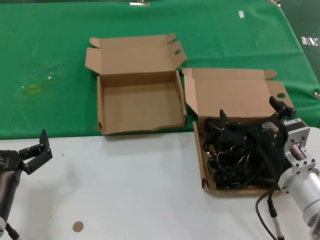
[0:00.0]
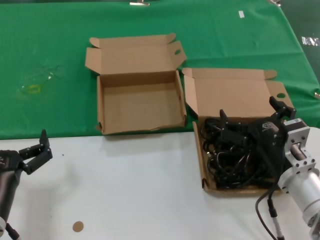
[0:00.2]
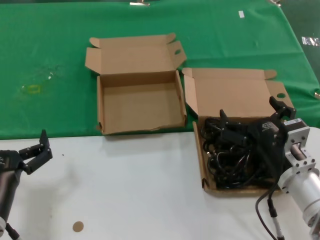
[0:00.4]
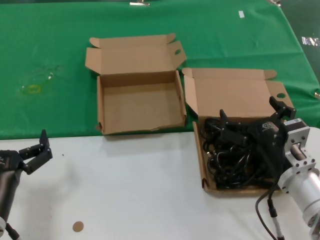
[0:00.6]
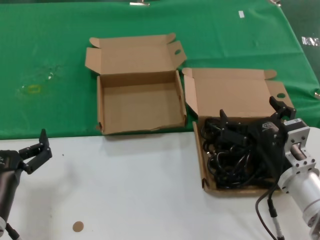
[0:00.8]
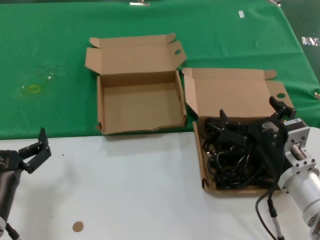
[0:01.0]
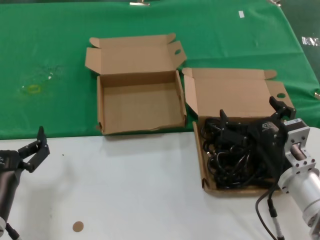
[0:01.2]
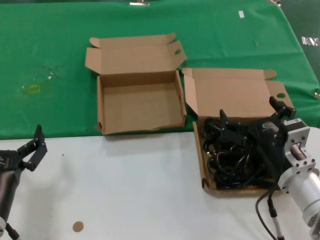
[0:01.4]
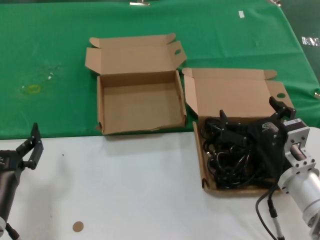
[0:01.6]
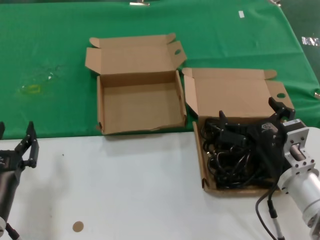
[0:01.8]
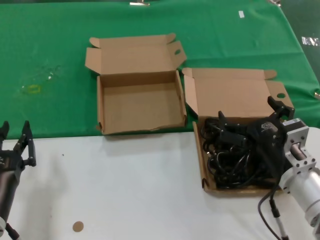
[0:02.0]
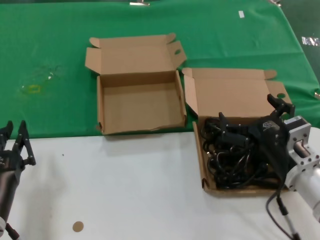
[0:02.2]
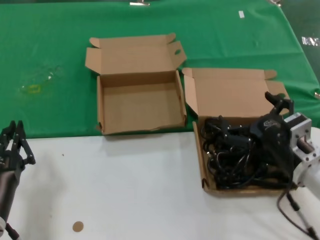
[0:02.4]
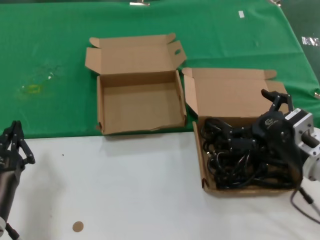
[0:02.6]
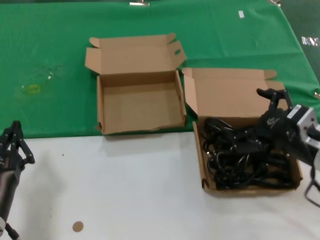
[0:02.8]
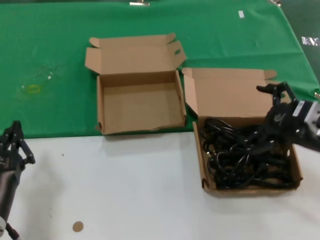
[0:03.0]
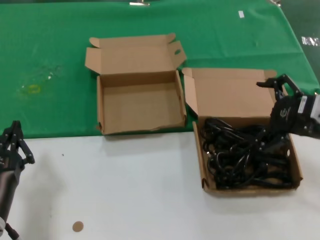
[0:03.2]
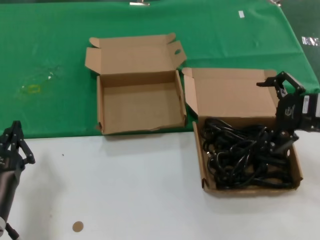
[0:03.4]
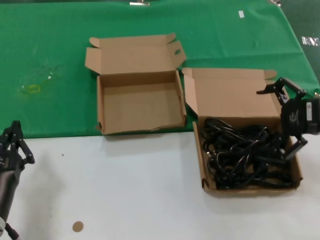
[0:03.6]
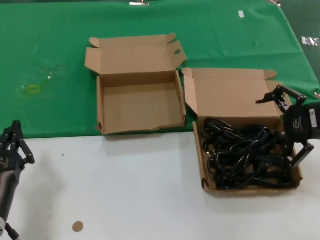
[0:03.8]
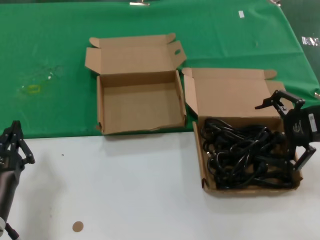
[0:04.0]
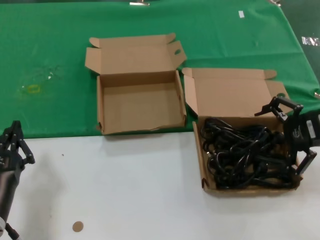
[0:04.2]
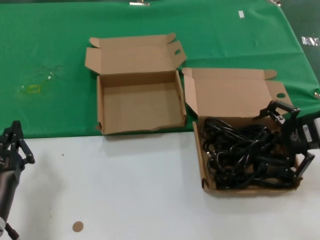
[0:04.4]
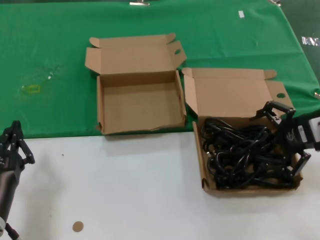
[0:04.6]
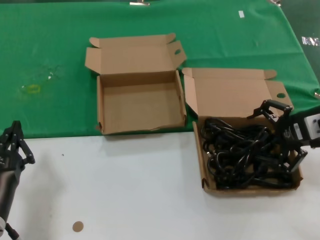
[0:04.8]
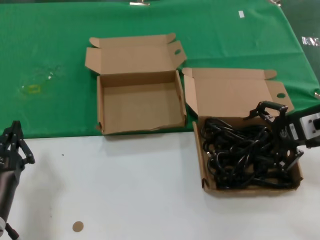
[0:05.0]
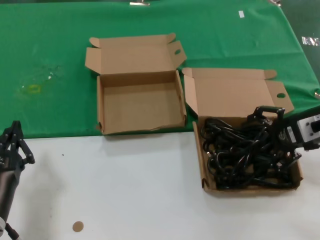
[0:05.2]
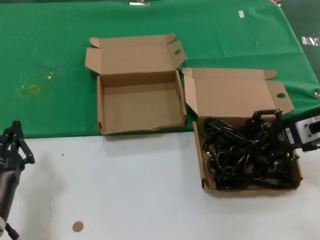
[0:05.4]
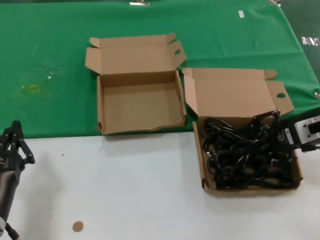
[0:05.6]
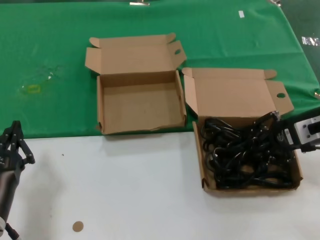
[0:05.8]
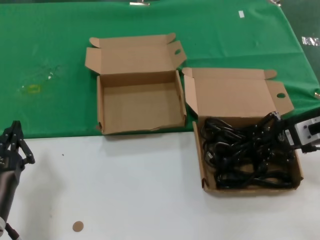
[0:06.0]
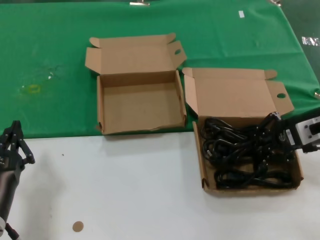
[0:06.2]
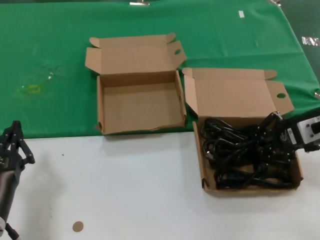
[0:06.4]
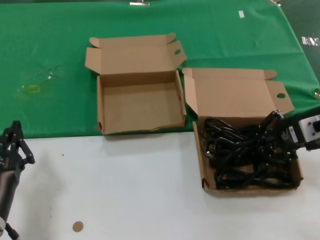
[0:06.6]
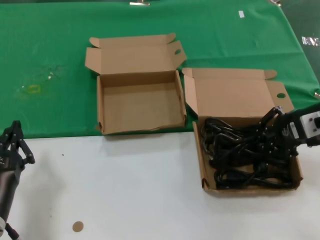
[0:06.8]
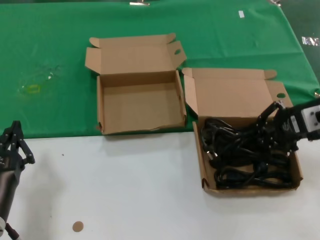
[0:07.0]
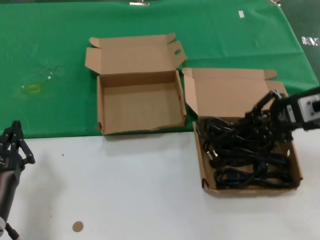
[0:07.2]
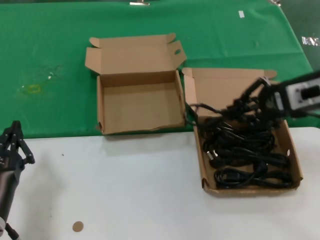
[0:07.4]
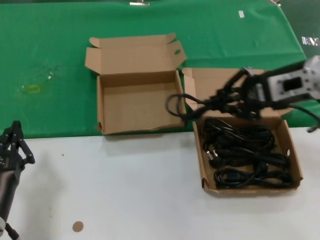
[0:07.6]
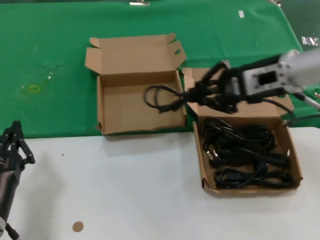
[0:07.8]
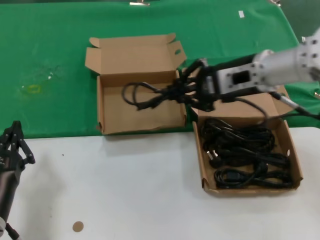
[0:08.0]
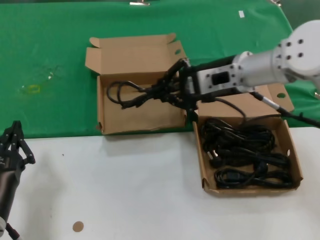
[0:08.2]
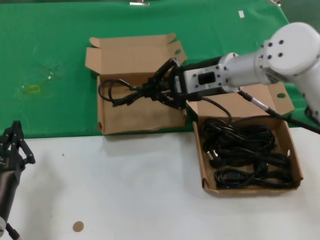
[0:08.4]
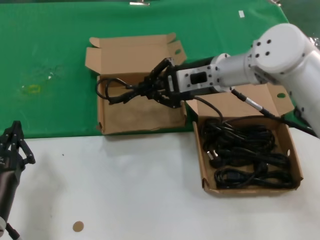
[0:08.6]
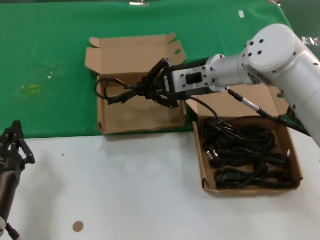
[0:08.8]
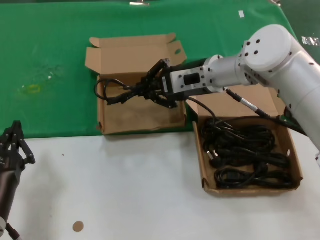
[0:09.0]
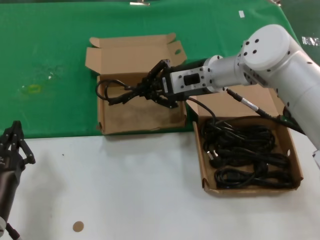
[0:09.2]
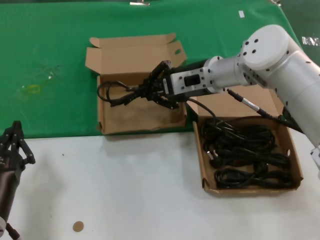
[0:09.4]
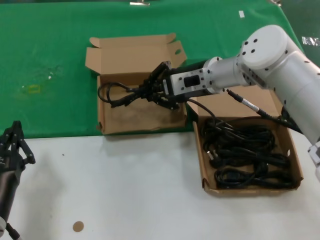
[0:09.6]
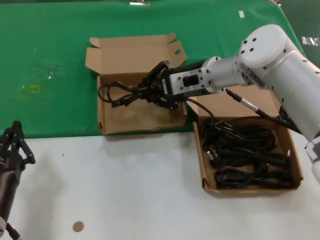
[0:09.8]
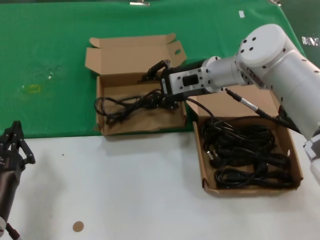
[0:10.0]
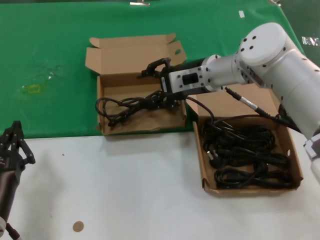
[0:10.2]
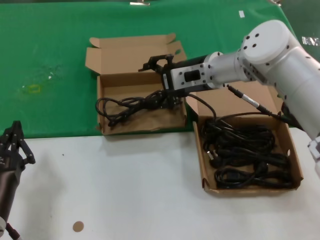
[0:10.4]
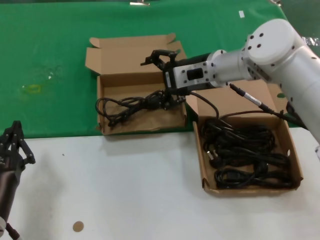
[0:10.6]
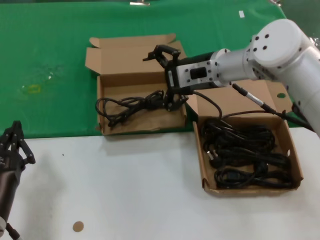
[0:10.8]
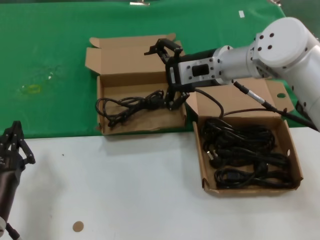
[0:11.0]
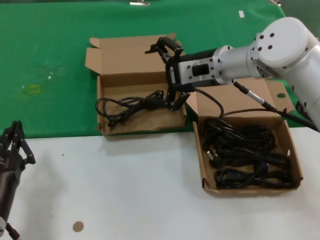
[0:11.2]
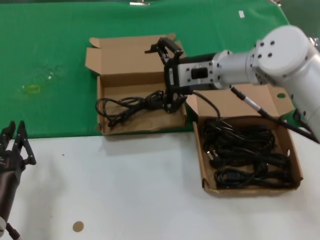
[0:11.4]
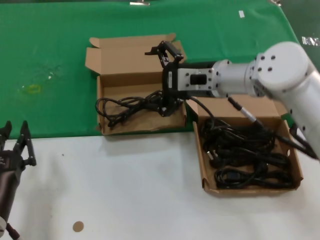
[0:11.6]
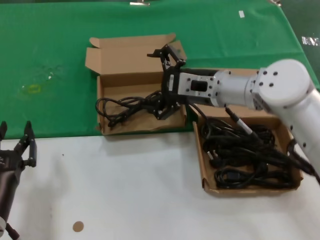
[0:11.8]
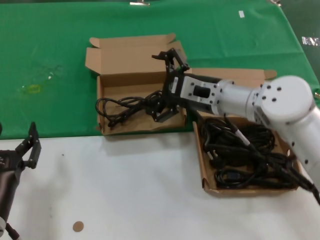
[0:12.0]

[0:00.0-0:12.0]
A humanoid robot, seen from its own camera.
Task of the whole recording: take the parts from the box containing them and put them into an empty box.
Step, 0:00.0 to 0:05.6: Grasp the data cable.
Step, 0:06.0 to 0:10.0: Place the data cable in the another box.
0:00.0 to 0:01.6: The two hands keep their place.
0:01.6 to 0:03.0: The right hand travels to the right and upward by about 15 cm.
0:03.0 to 0:04.4: The right hand moves upward and forward, about 10 cm.
0:04.4 to 0:06.0: The hands make only small movements.
0:06.0 to 0:07.6: The right hand shifts roughly 10 cm upward and to the left.
0:07.6 to 0:09.0: The right hand travels to the left and forward by some 20 cm.
0:09.0 to 0:10.4: The hands stay close to where they were, moving slightly.
0:10.4 to 0:12.0: The right hand is displaced backward by roughly 5 cm.

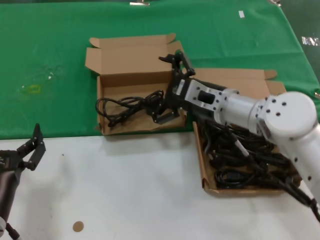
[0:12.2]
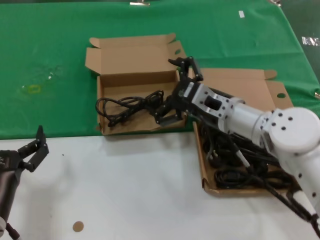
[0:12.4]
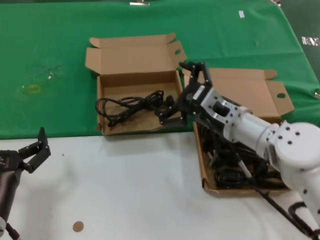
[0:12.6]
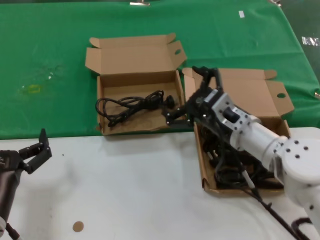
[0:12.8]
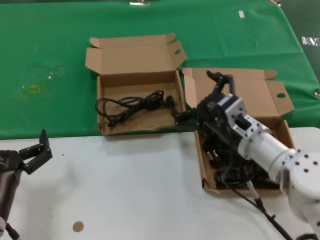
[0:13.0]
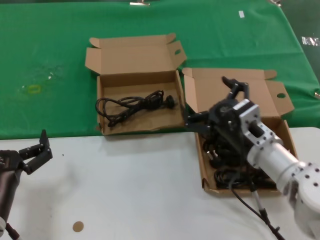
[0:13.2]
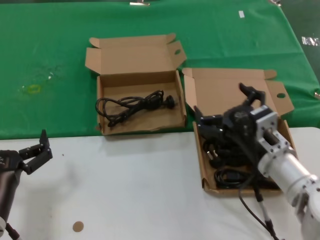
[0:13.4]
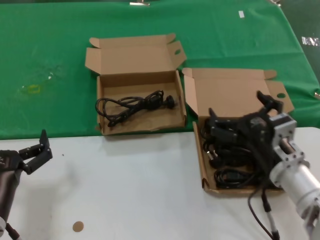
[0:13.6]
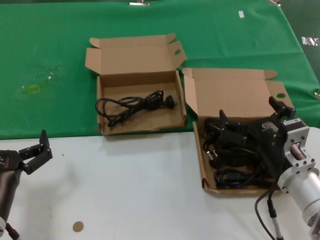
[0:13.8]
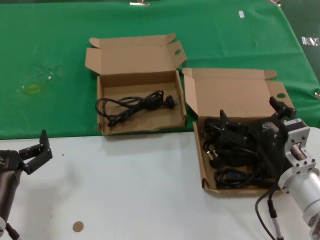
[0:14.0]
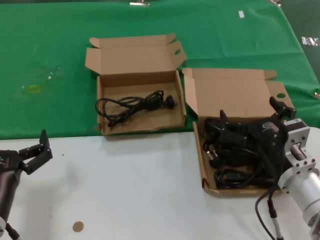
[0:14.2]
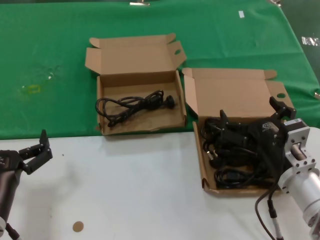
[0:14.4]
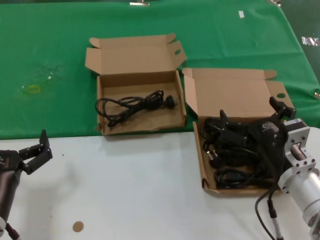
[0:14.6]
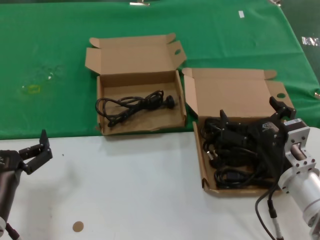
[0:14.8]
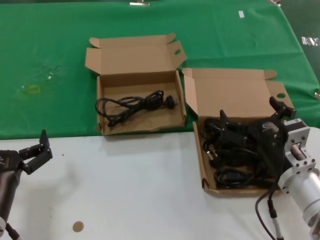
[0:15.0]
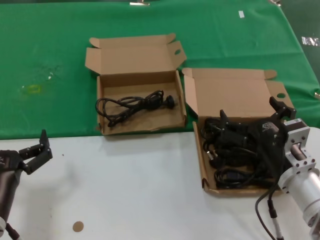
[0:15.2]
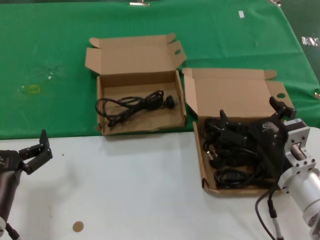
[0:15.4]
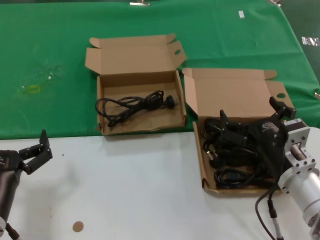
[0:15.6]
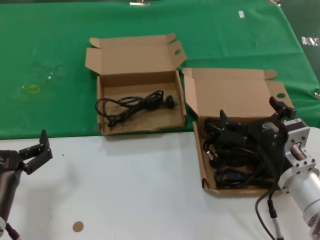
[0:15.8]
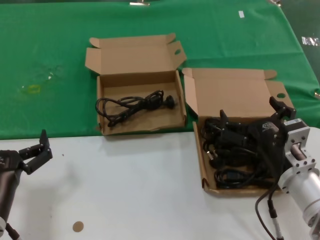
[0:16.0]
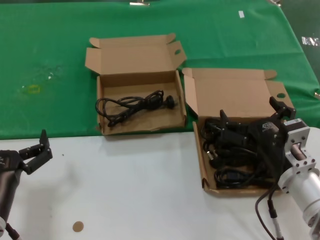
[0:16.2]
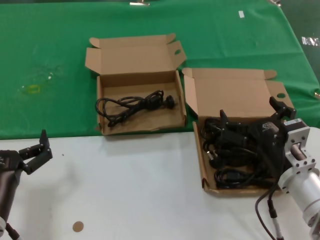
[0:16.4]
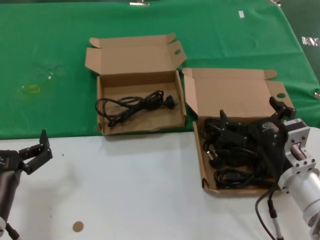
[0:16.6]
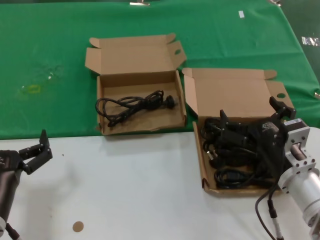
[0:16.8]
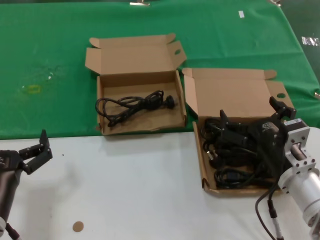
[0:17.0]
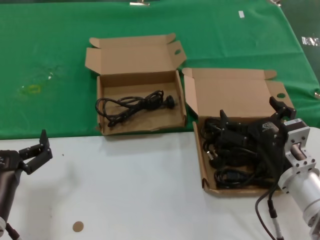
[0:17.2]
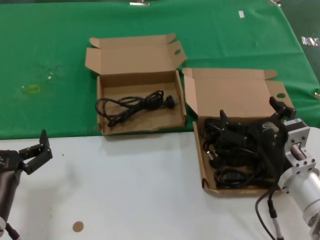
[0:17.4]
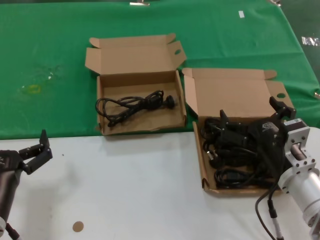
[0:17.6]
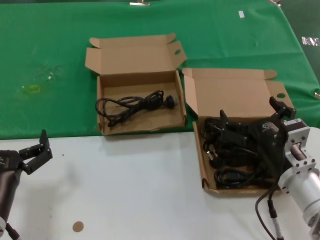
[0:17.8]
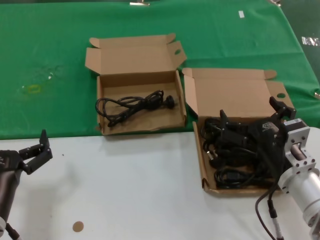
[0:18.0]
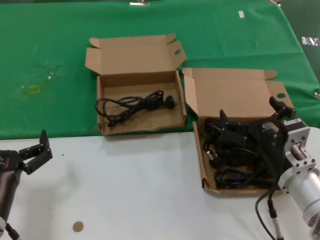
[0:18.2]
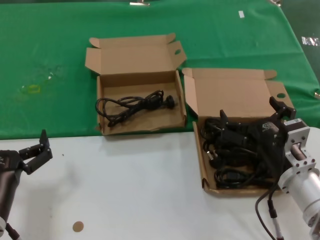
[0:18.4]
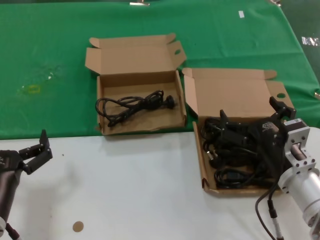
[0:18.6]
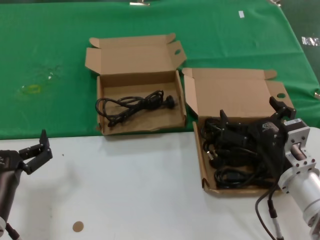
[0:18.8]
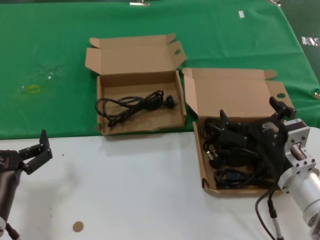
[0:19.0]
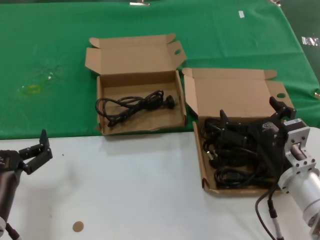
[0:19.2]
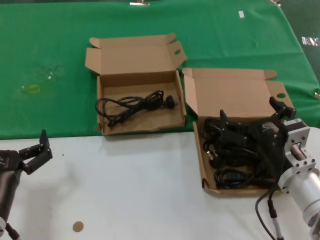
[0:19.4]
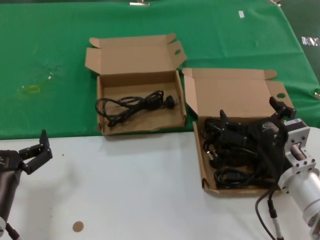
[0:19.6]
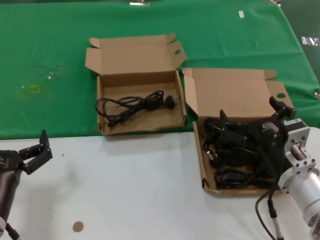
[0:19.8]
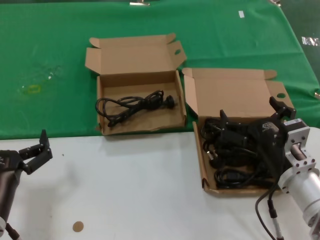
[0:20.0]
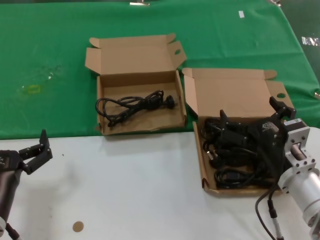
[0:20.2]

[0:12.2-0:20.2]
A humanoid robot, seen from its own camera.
Task of the whole recording: take the parts from the box containing them and put them into an empty box.
0:12.2 to 0:13.8: The right hand is displaced backward, downward and to the right by approximately 20 cm.
0:13.8 to 0:20.2: Both hands stay put.
